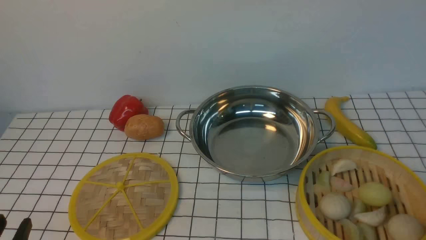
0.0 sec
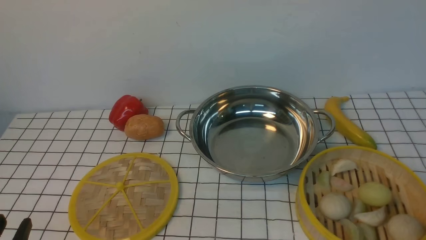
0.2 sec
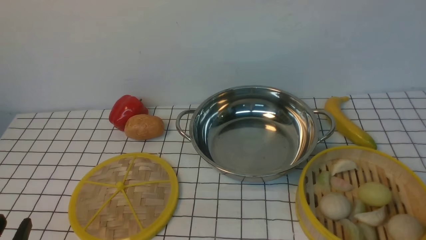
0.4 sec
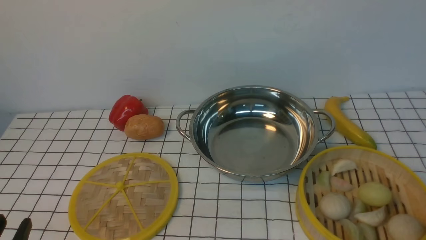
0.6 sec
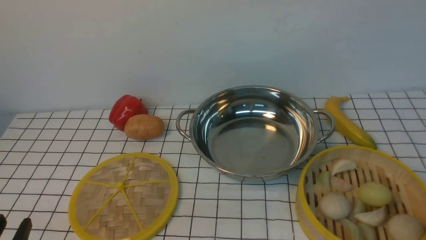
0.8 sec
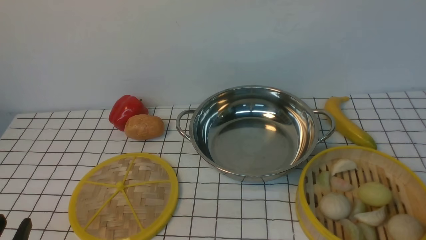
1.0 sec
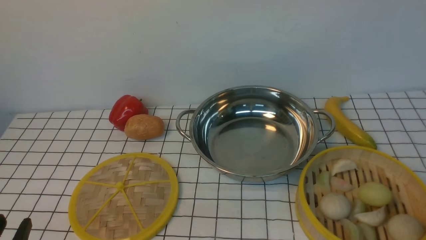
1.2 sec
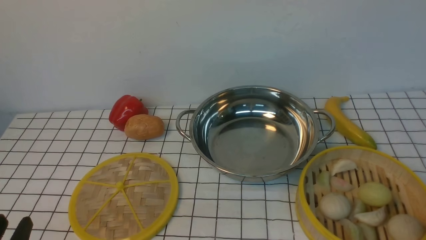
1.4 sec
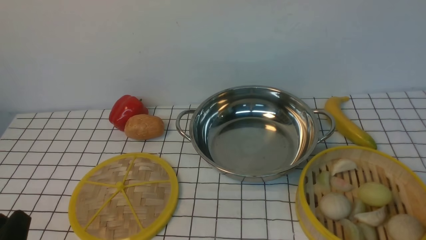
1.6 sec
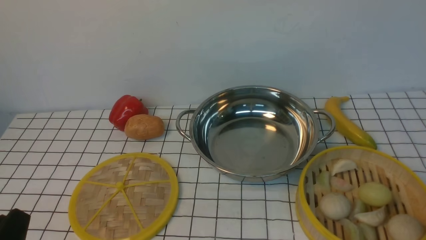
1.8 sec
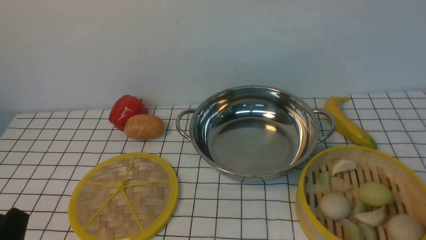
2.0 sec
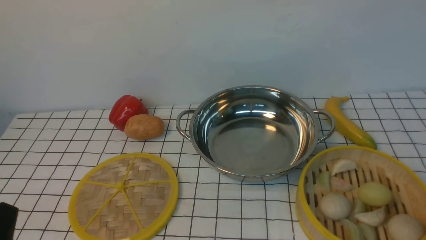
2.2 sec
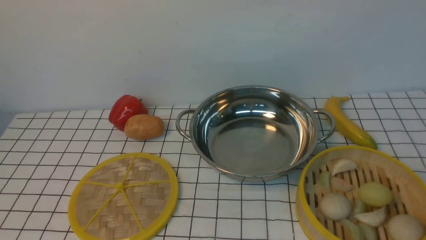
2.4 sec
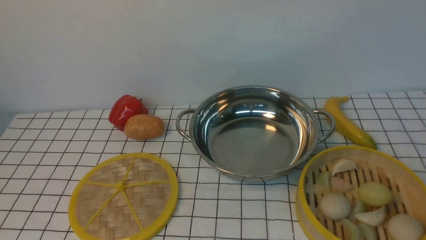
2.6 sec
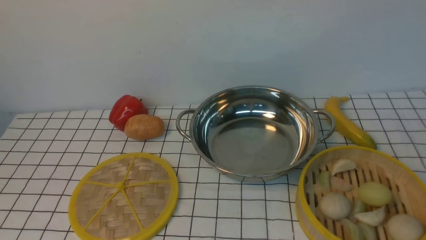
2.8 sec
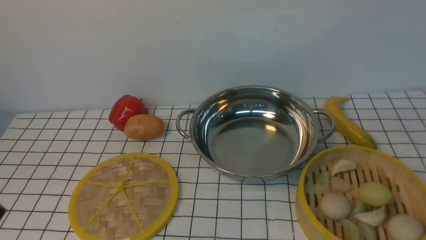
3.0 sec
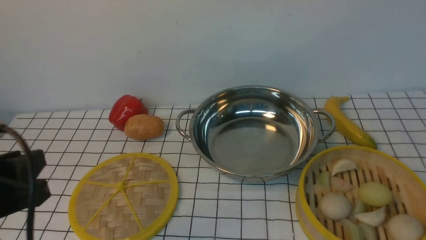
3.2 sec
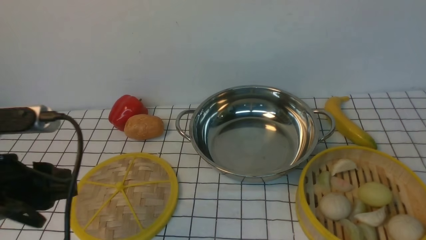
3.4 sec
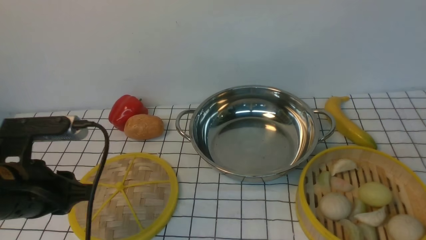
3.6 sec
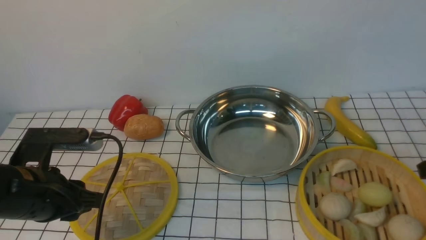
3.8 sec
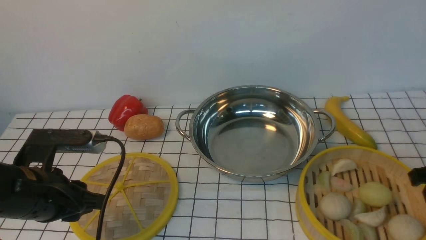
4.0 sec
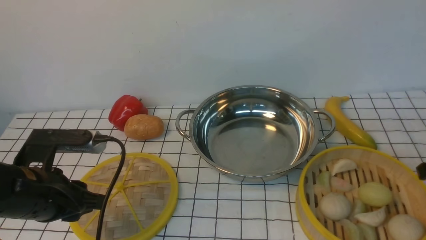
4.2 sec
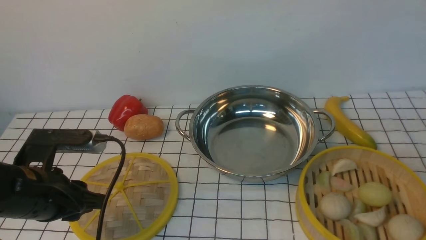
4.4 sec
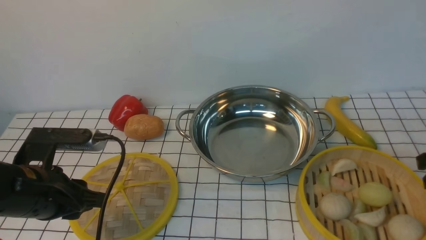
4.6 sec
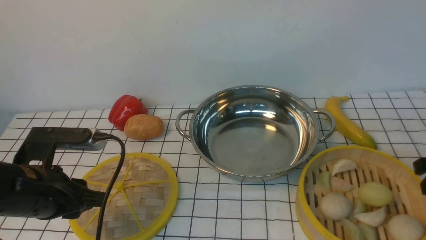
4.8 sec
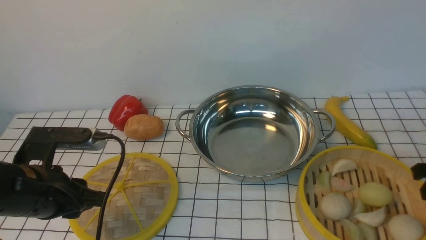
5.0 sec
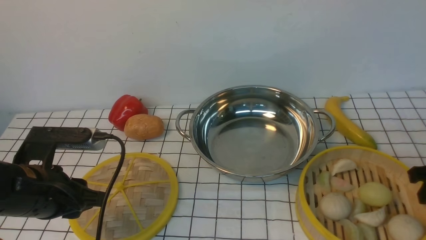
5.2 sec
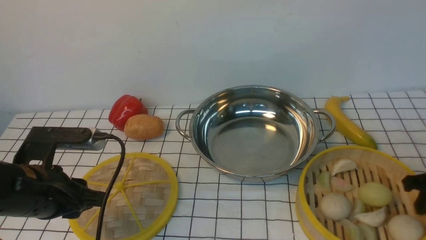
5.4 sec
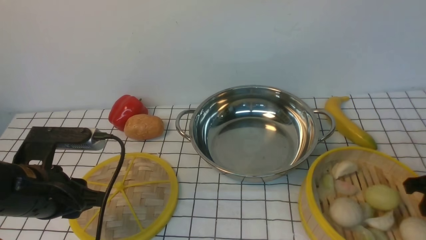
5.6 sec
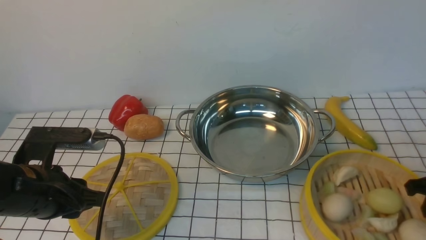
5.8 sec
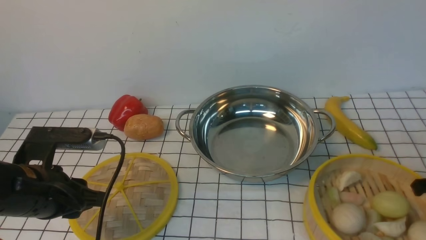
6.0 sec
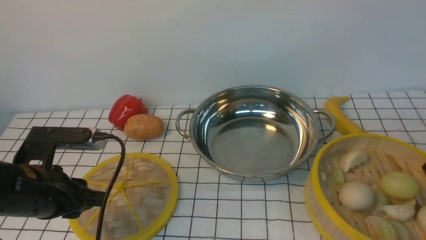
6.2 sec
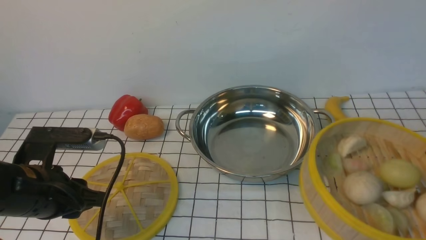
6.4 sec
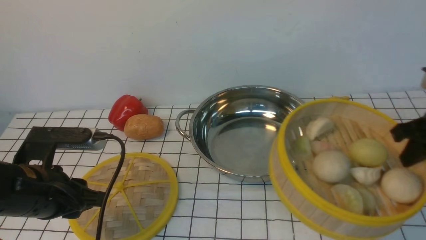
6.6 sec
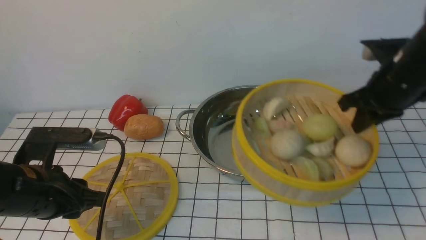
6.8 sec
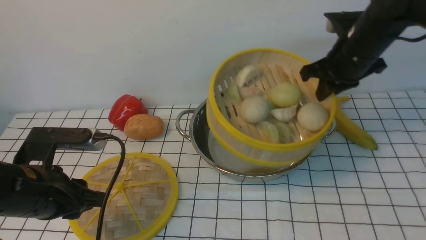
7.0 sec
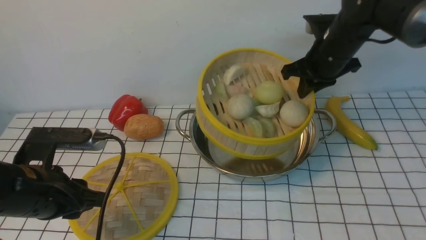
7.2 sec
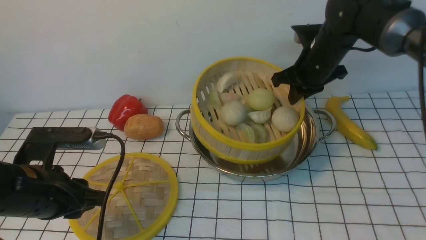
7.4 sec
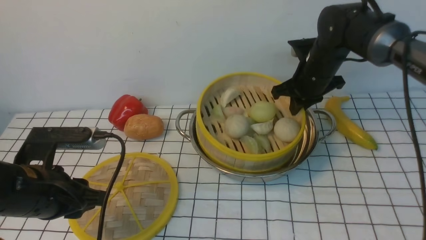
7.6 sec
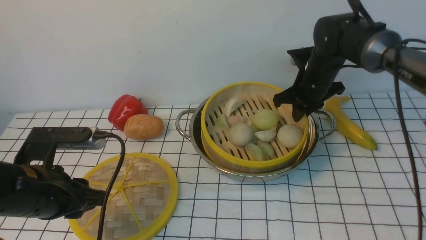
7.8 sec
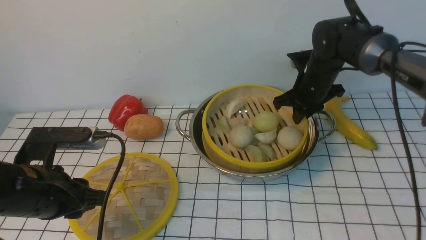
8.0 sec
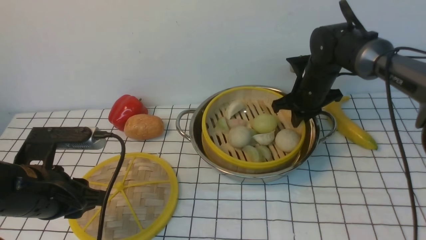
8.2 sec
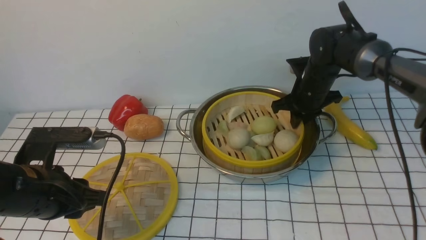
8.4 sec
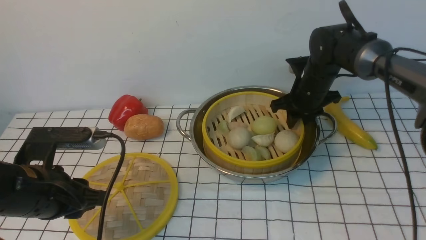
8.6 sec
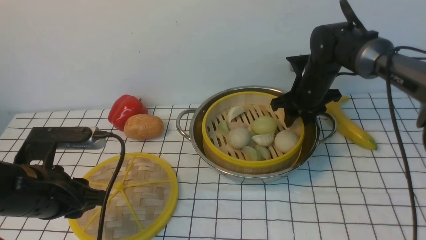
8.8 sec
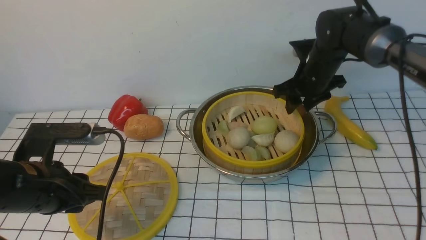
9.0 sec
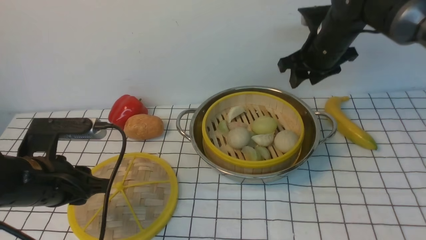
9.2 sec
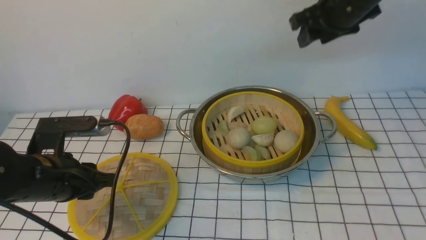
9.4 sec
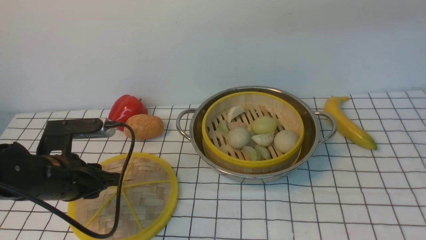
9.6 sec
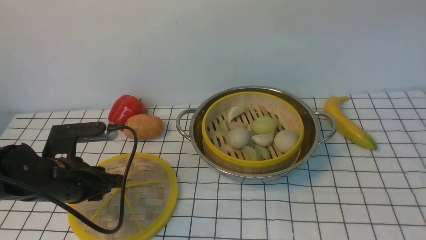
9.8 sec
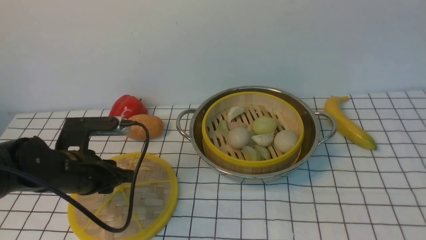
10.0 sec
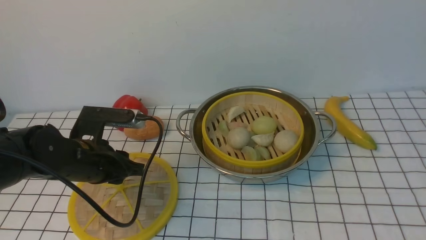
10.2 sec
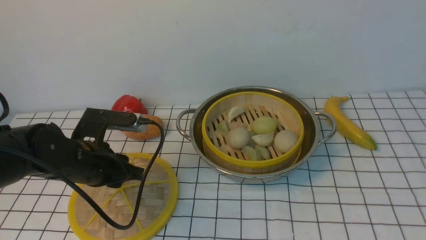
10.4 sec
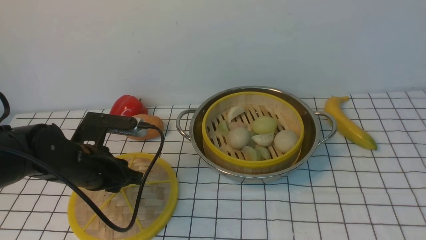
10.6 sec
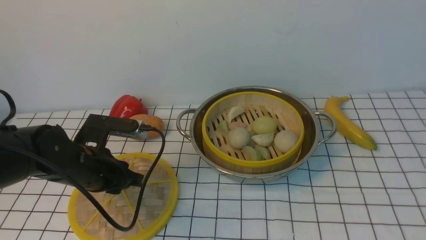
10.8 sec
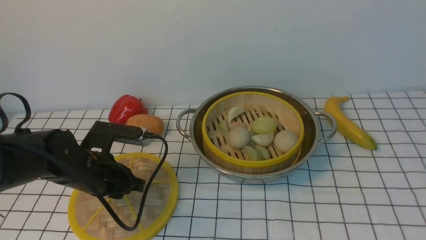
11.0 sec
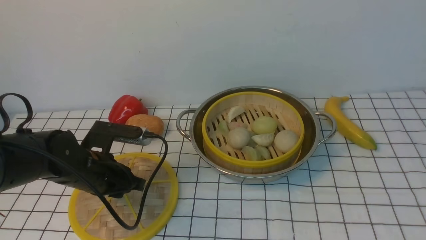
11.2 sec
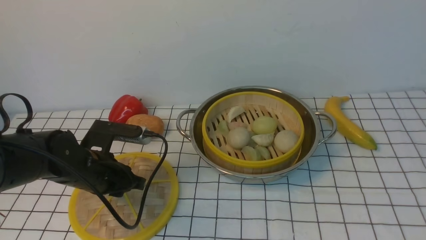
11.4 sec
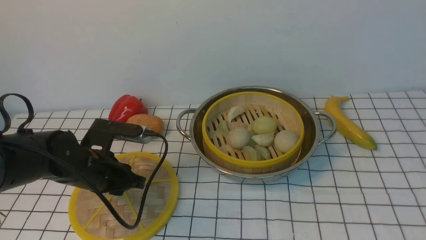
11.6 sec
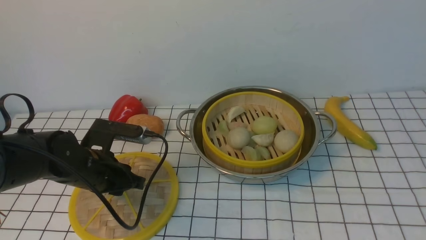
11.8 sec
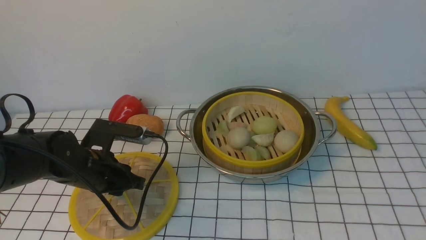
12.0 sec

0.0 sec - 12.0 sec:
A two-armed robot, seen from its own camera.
Task of the whole recording: place the steamer in the pot on the white tablecloth, and put the lid on the steamer.
Step, 0.0 sec - 6.0 sec: use the right arm to lift the steamer closest to it.
Step, 6.2 sec - 8.8 sec: use the right arm to put the steamer into the iron steamer pot in the middle.
1.6 sec - 3.0 sec: The left gripper goes about 10 cm upward.
3.0 sec - 4.4 sec: The left gripper shifts approximately 15 cm forward and downward.
4.4 sec - 6.0 sec: The right gripper closes its fingers.
6.0 sec - 7.6 sec: The right gripper heads forward and to the left, covering roughly 25 cm.
7.6 sec - 9.0 sec: The right gripper opens.
9.0 sec - 10.4 sec: The right gripper is displaced backward and upward by roughly 50 cm, and closes up. Meanwhile the left gripper moves forward, about 5 cm.
10.4 sec - 12.0 sec: The grippers move only a little.

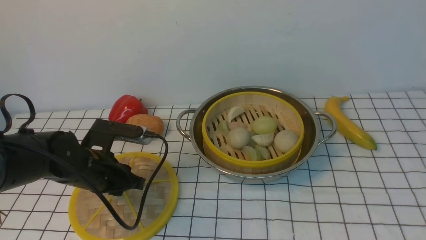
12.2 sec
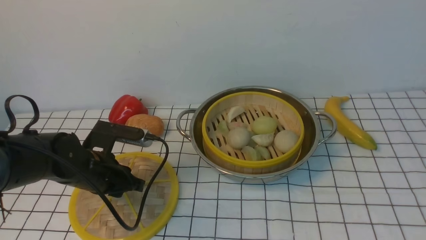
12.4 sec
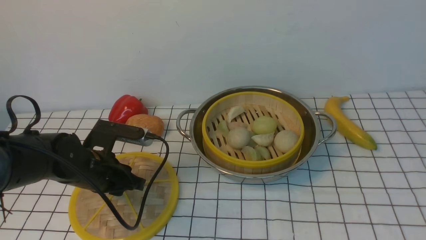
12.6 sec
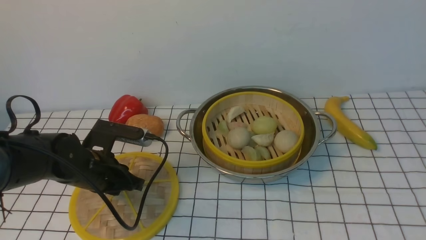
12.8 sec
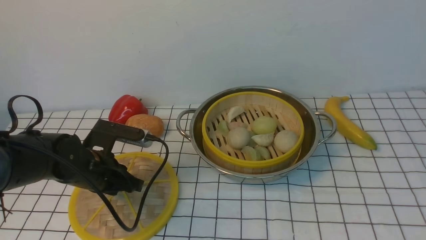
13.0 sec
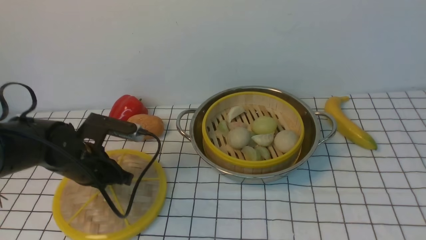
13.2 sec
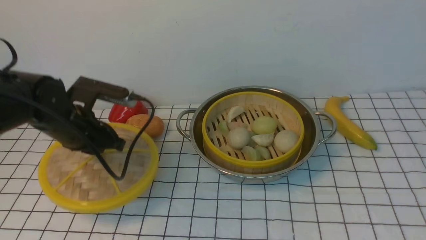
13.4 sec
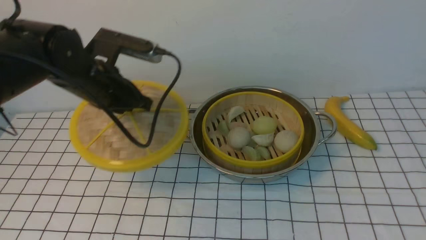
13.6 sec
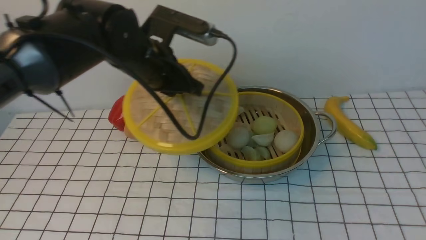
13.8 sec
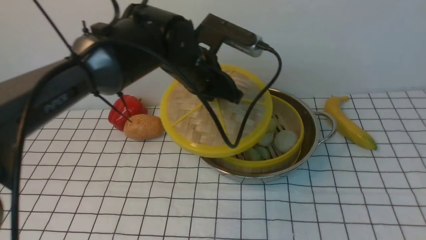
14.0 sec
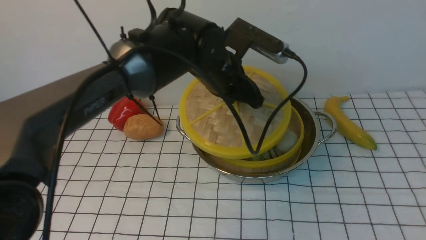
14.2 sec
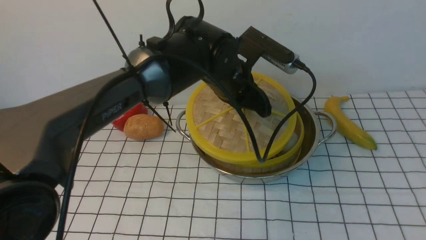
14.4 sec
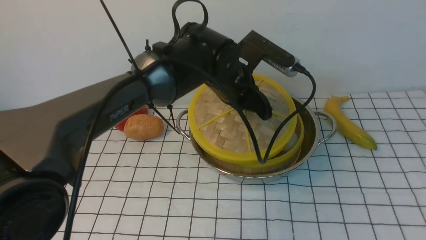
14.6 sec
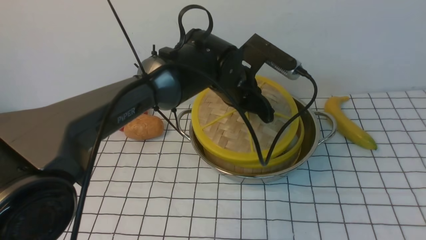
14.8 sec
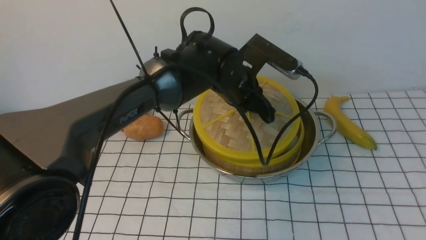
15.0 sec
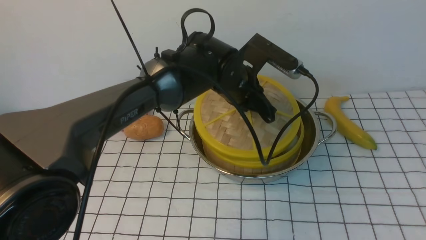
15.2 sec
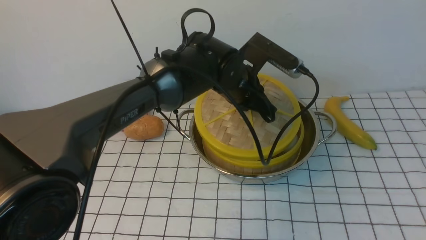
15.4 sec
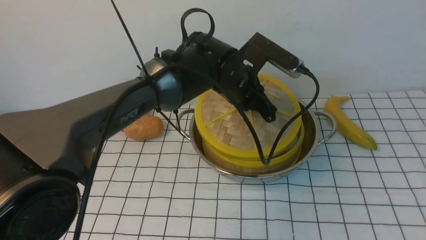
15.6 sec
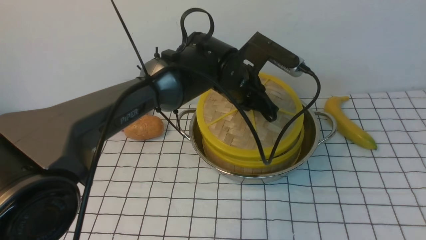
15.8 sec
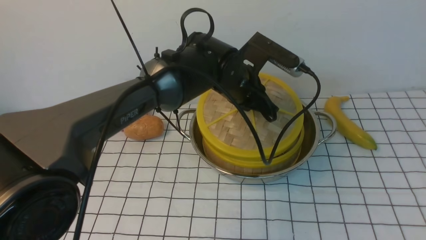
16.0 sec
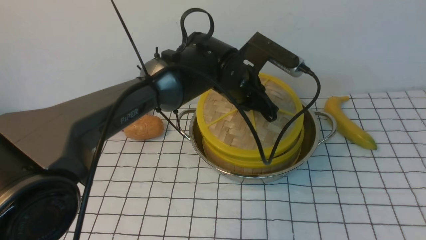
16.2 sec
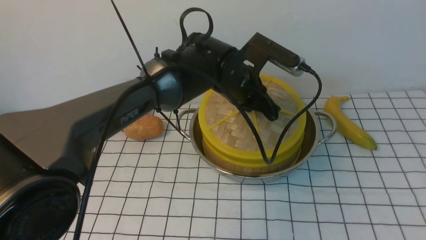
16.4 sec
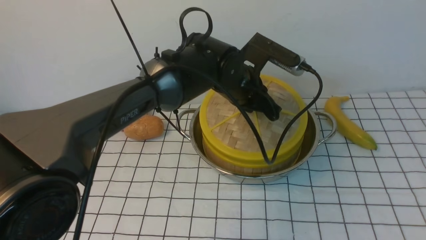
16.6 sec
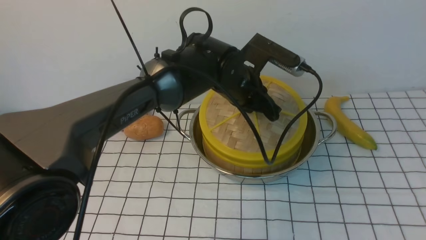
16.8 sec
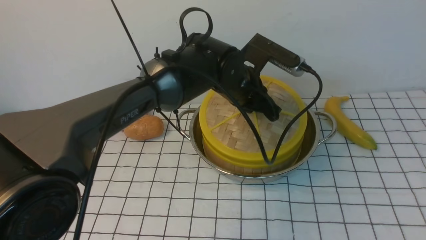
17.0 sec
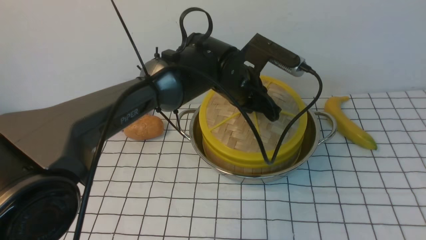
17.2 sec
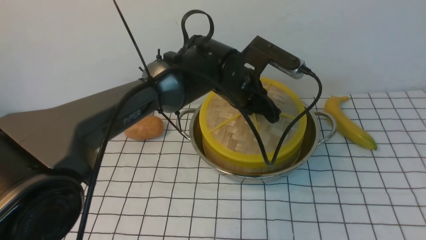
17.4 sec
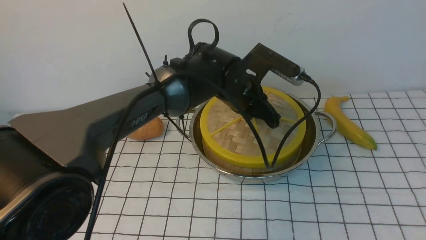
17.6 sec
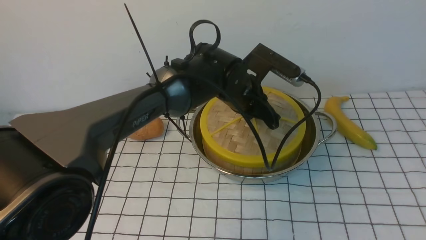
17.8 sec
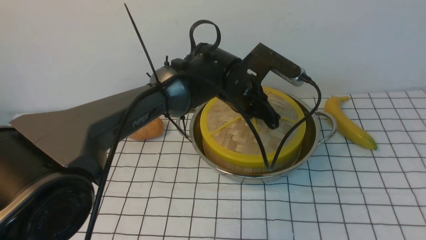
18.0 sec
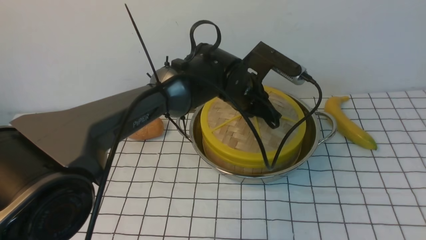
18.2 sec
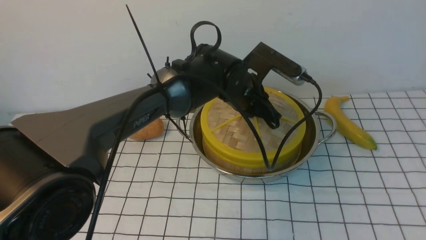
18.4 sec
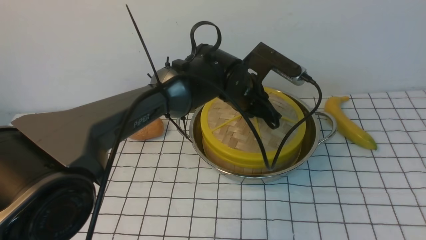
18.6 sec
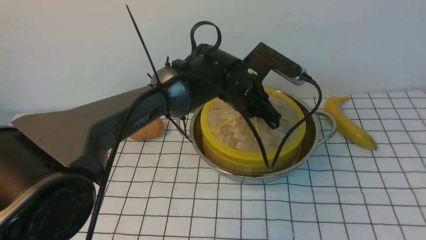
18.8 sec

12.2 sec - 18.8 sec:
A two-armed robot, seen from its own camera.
Task of the whole recording: place the steamer in the pot on the white tablecloth, and put the lid on the steamer.
12.2 sec - 13.8 sec: The left gripper moves upward, to the right and forward, roughly 20 cm, and closes its fingers.
13.8 sec - 15.4 sec: The left gripper moves to the right and downward, some 15 cm.
15.4 sec - 17.2 sec: The two grippers keep their place.
17.2 sec - 18.8 sec: The grippers stay close to where they were, moving slightly.
